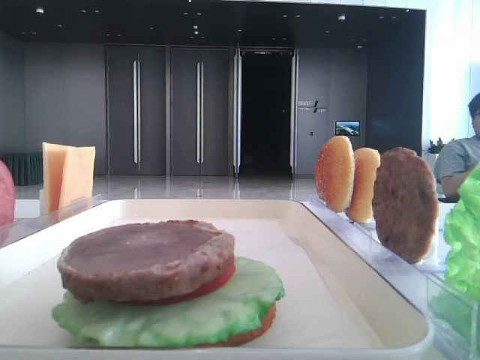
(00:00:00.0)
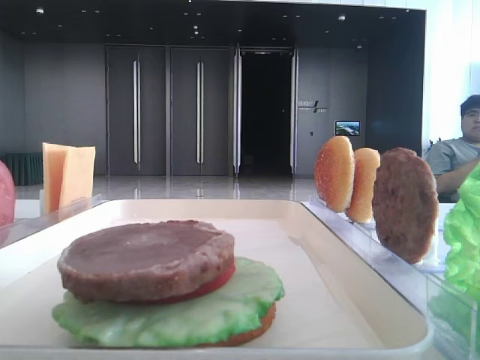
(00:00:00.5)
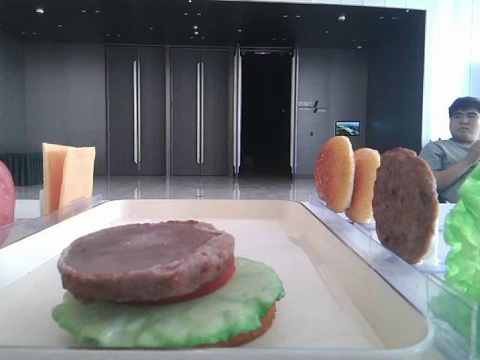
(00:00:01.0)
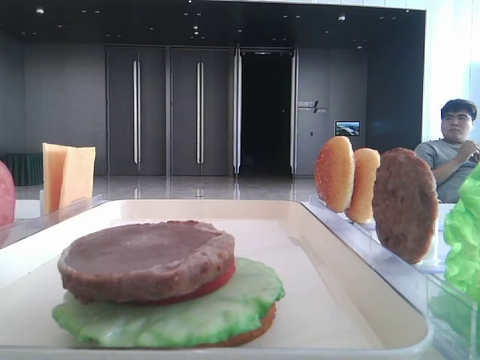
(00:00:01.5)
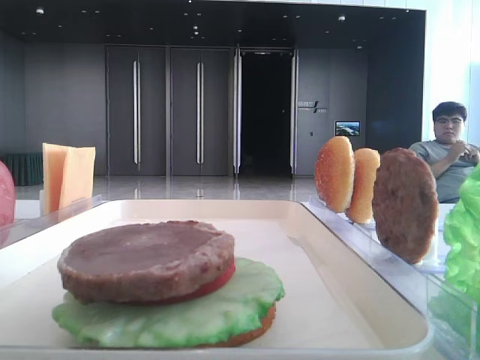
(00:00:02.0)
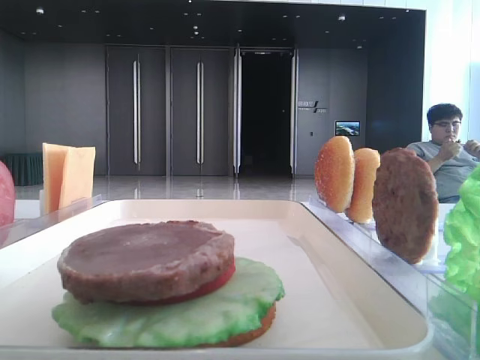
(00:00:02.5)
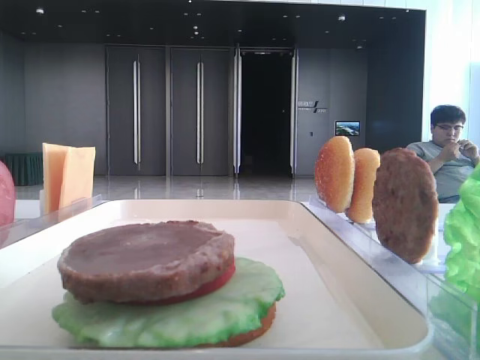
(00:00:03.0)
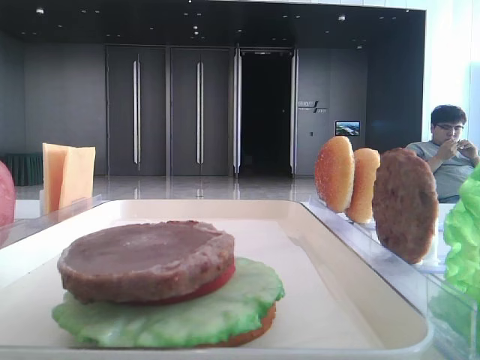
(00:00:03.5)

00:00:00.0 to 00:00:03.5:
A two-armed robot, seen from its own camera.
00:00:00.0 to 00:00:02.0: The right gripper travels backward and downward by approximately 30 cm.
00:00:02.0 to 00:00:03.5: The right gripper changes place by roughly 5 cm.
